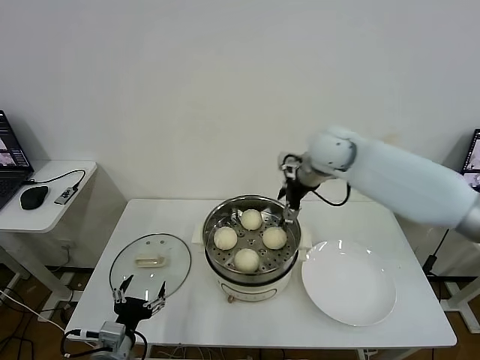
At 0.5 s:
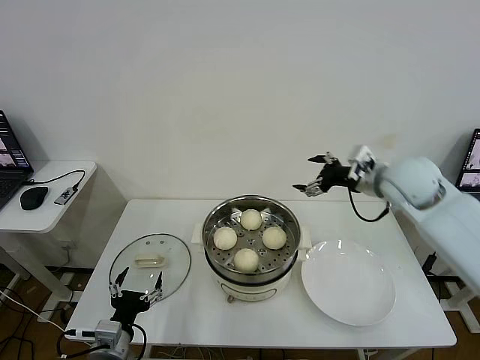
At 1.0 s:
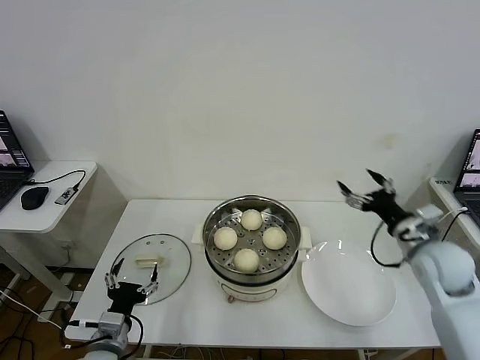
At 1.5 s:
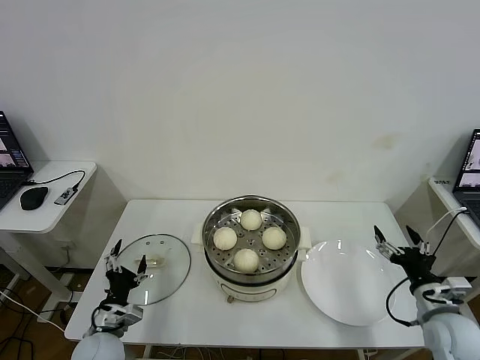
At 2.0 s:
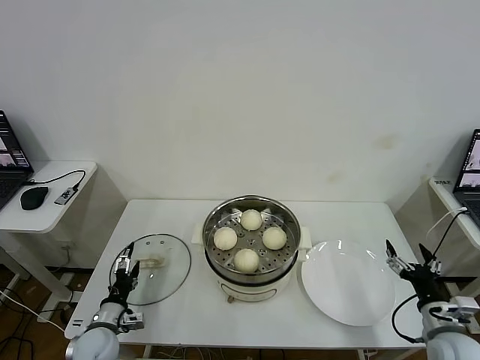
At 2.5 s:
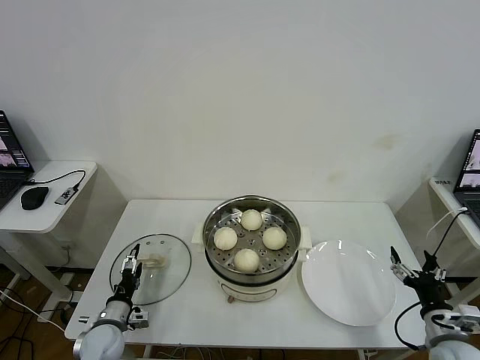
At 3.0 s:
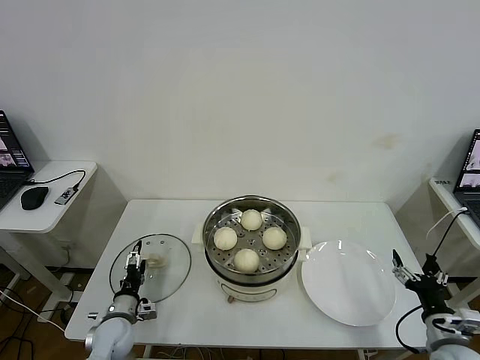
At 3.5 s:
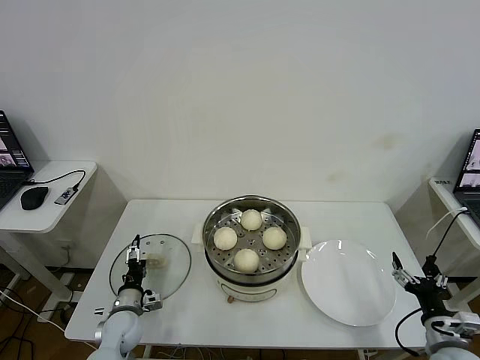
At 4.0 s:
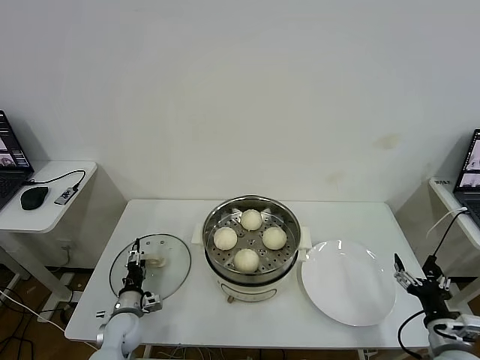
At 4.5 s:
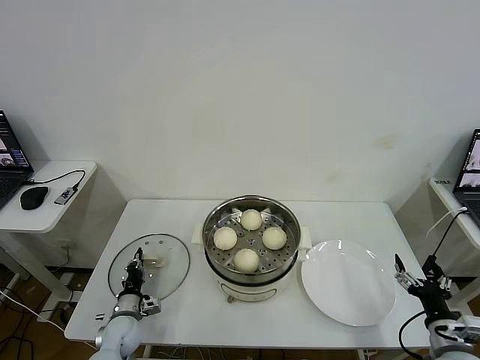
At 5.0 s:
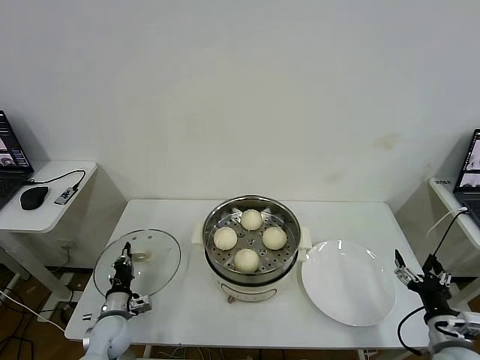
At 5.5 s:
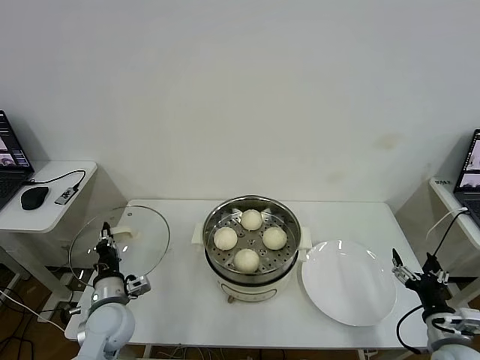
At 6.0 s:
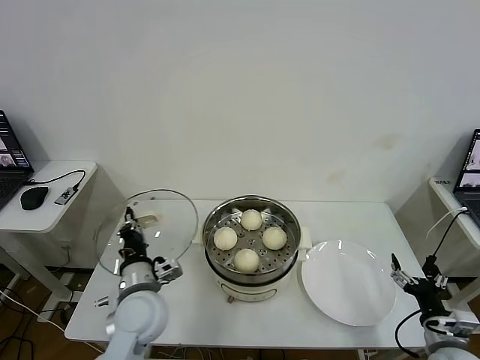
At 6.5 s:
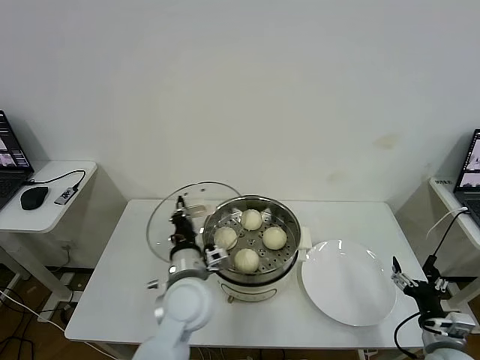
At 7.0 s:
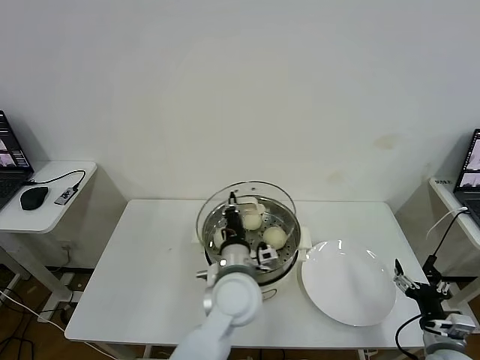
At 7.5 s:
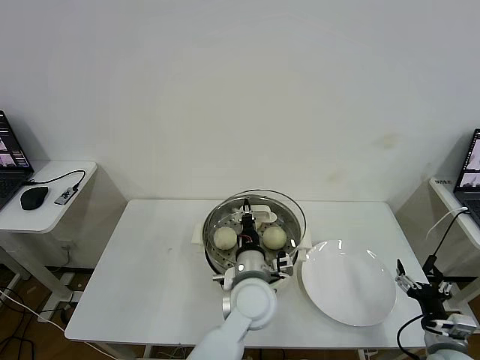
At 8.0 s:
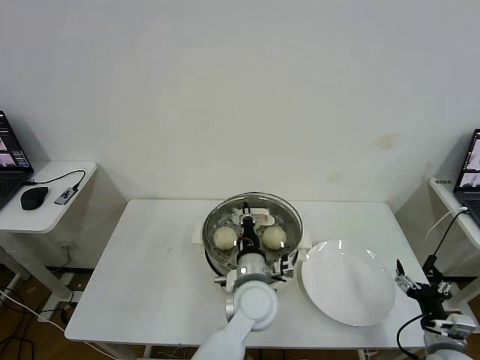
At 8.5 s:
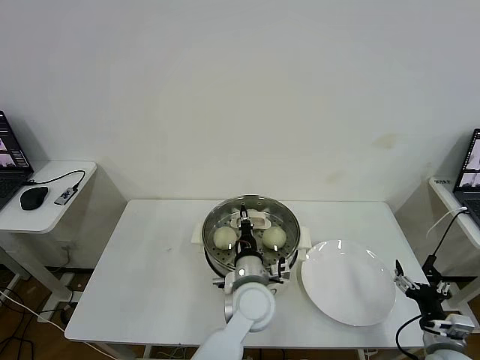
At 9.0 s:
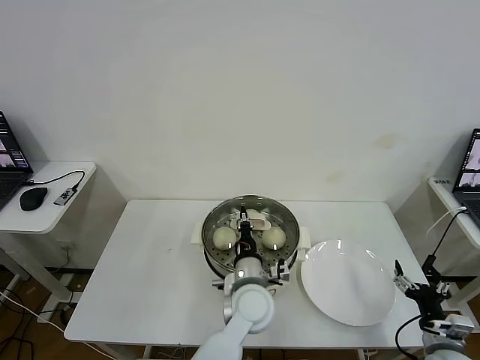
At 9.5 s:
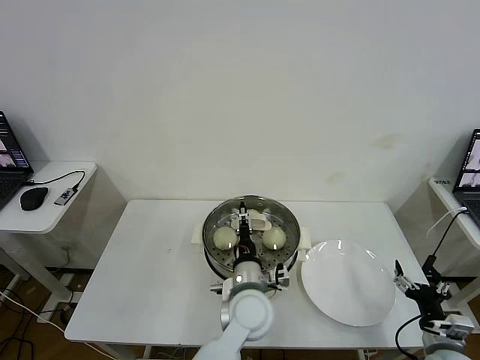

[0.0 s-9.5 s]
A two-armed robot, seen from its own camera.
Task of the whole recording: take steamed baozi put them in steamer then cover it.
Step, 0.0 to 4.5 s: Grasp the pot lid with left gripper.
0.0 to 2.0 s: The left gripper goes roughly 15 cm forward, downward and to the left; the right gripper heads backward, downward and to the right, covering about 50 cm.
2.0 to 4.0 s: The left gripper shifts roughly 5 cm forward.
4.0 to 5.5 s: The left gripper shifts about 10 cm upward, and closes.
5.5 to 7.5 s: The left gripper travels to the right by roughly 30 cm.
7.5 to 9.5 s: The left gripper opens up.

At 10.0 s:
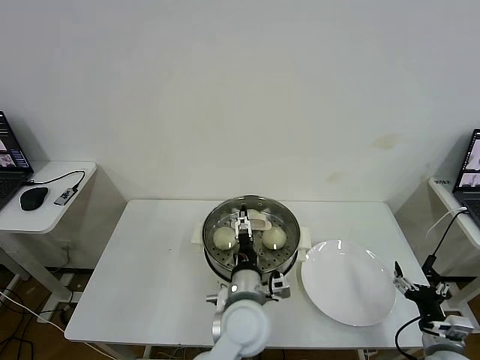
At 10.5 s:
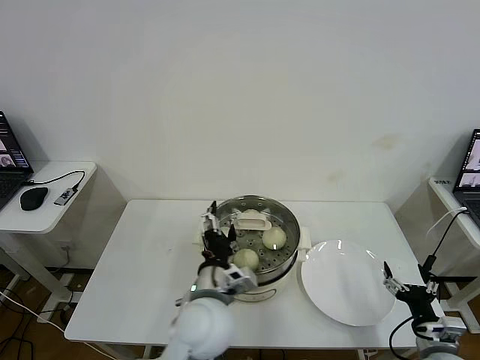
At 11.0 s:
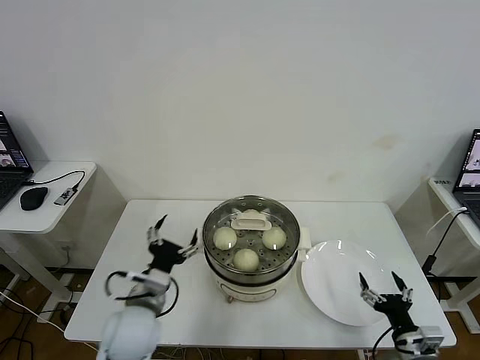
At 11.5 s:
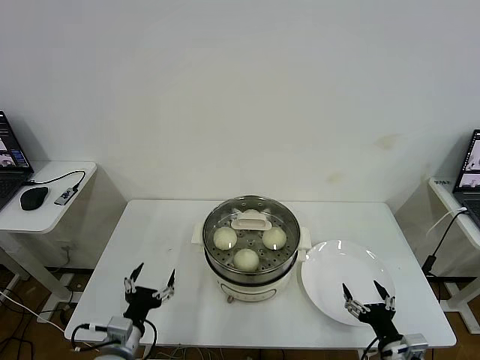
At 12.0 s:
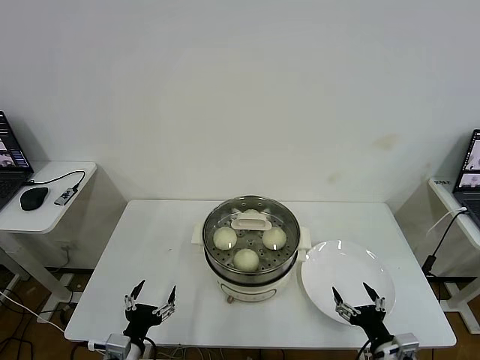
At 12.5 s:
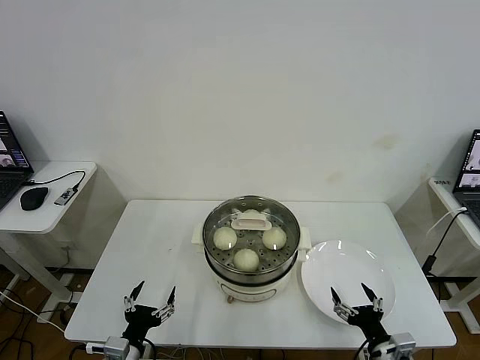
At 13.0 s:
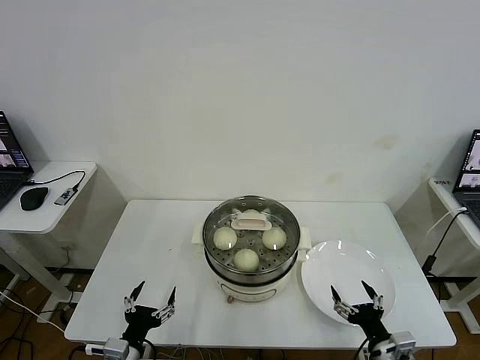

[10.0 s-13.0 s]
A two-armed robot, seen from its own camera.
Task of the whole recording: take steamed baozi put them in steamer then cover it.
10.0 to 11.5 s: The left gripper moves to the left, approximately 25 cm. The right gripper goes approximately 5 cm to the left.
11.5 to 13.0 s: The left gripper moves about 5 cm.
